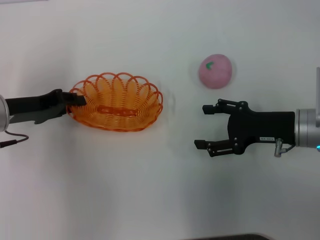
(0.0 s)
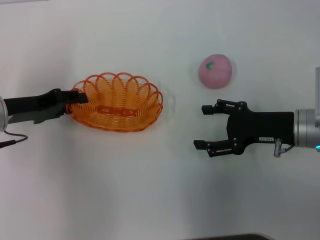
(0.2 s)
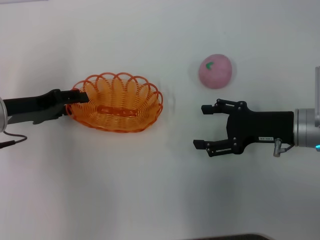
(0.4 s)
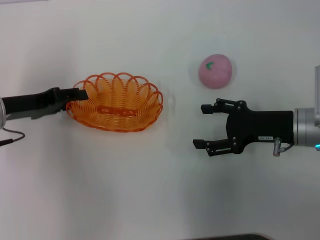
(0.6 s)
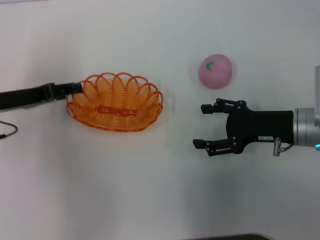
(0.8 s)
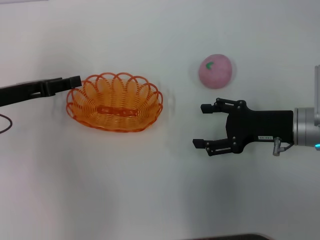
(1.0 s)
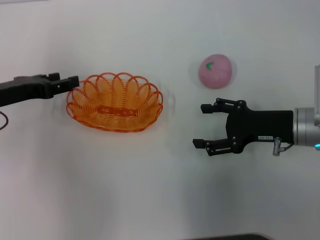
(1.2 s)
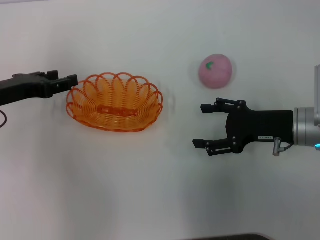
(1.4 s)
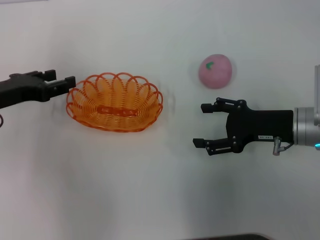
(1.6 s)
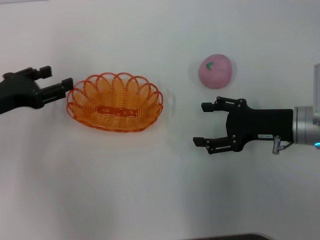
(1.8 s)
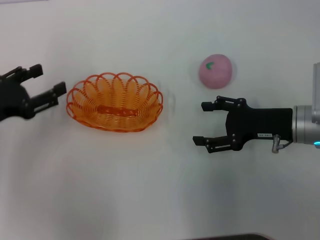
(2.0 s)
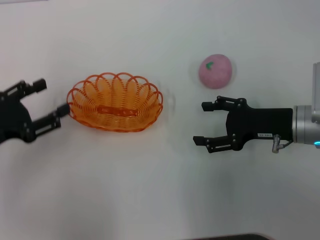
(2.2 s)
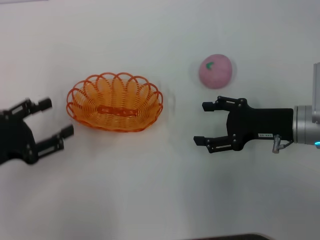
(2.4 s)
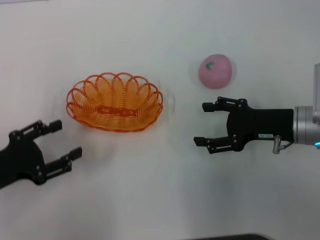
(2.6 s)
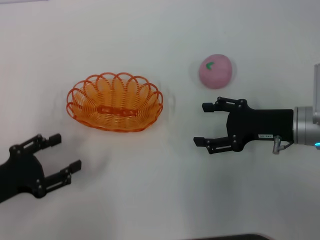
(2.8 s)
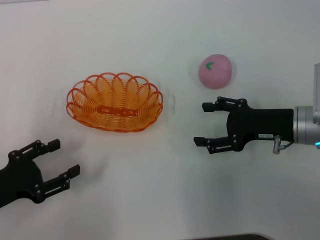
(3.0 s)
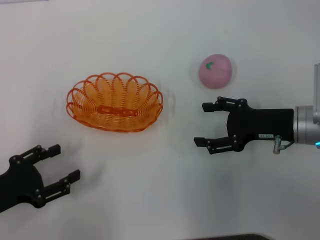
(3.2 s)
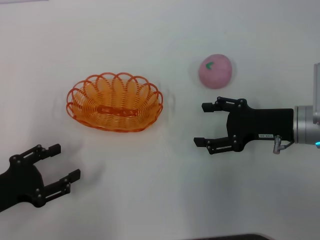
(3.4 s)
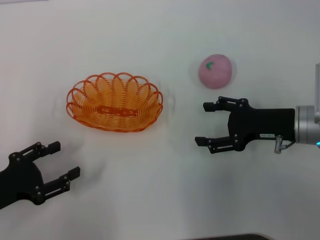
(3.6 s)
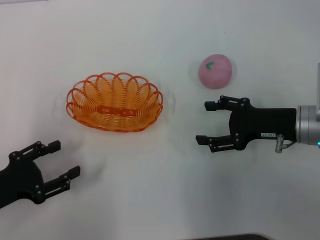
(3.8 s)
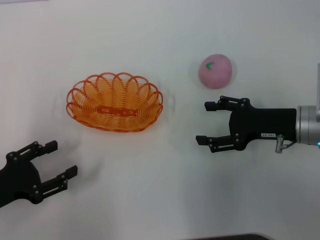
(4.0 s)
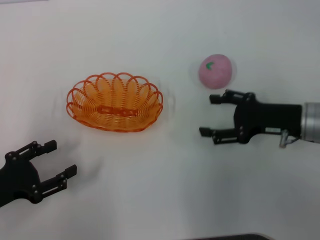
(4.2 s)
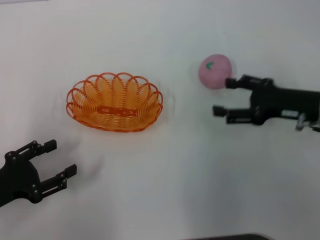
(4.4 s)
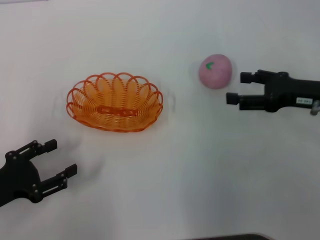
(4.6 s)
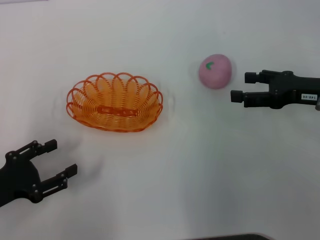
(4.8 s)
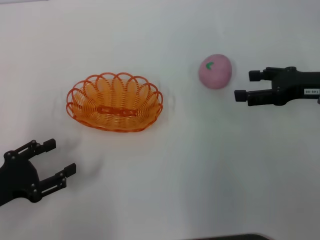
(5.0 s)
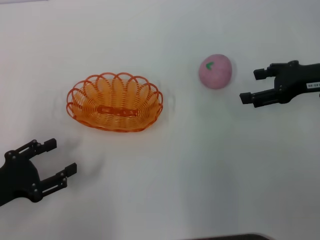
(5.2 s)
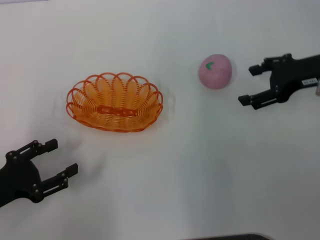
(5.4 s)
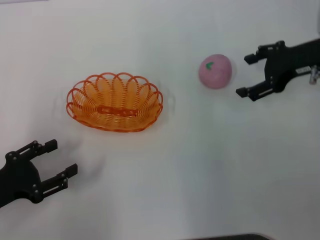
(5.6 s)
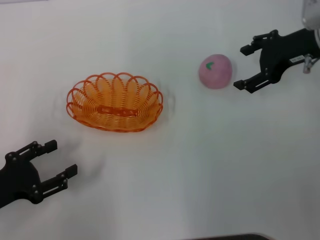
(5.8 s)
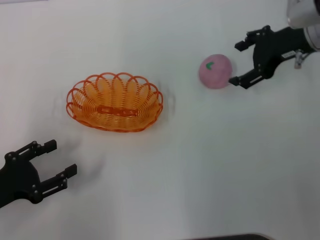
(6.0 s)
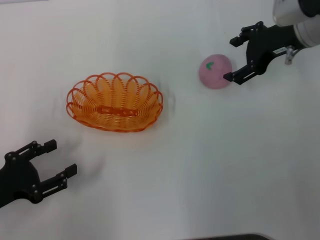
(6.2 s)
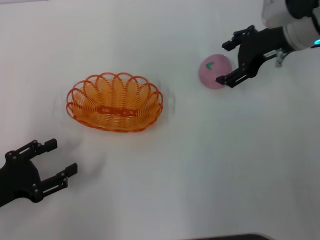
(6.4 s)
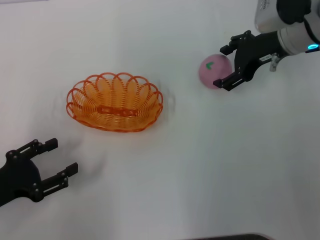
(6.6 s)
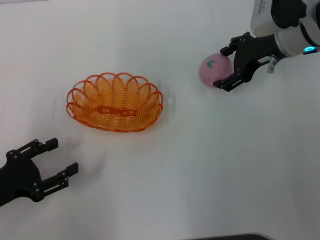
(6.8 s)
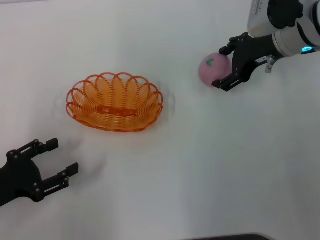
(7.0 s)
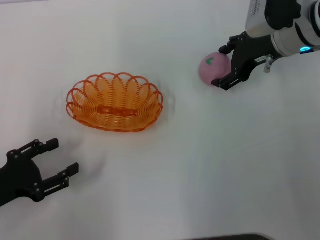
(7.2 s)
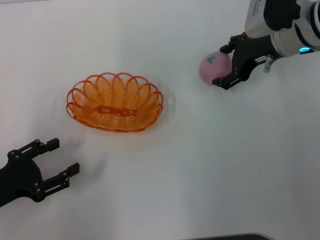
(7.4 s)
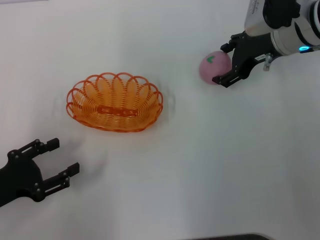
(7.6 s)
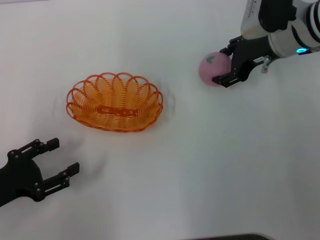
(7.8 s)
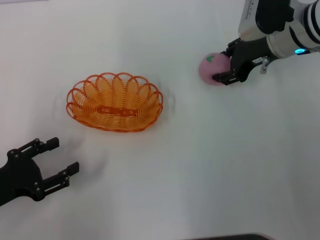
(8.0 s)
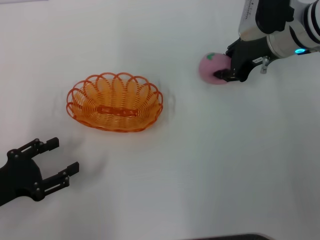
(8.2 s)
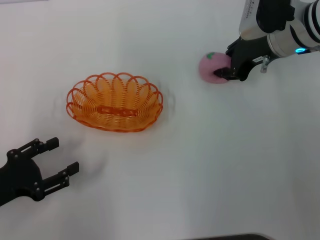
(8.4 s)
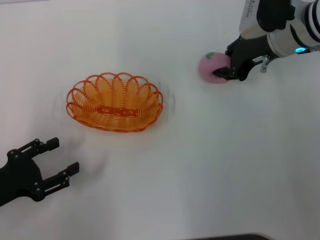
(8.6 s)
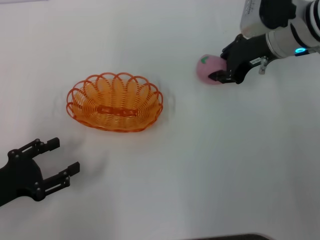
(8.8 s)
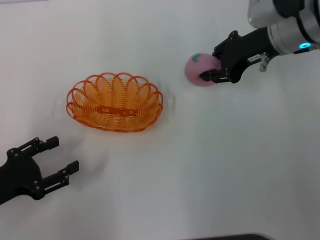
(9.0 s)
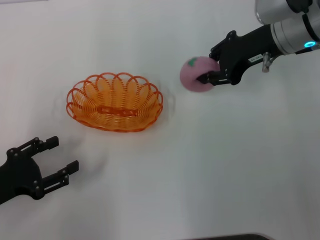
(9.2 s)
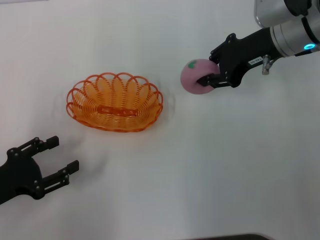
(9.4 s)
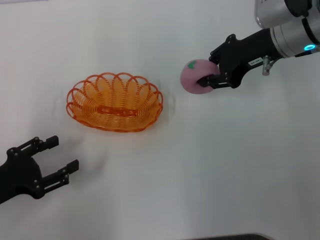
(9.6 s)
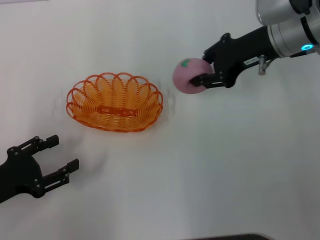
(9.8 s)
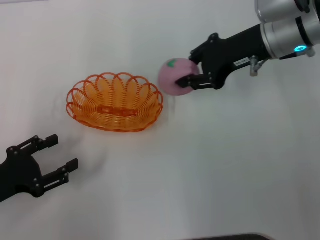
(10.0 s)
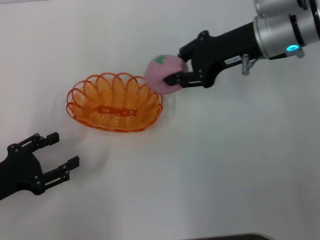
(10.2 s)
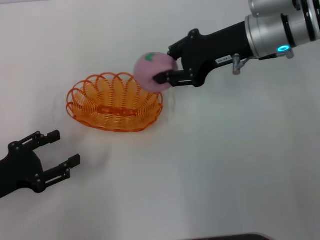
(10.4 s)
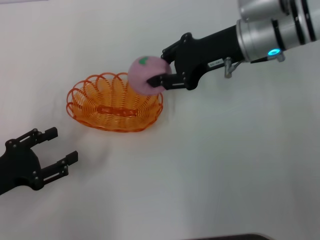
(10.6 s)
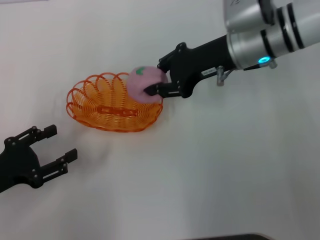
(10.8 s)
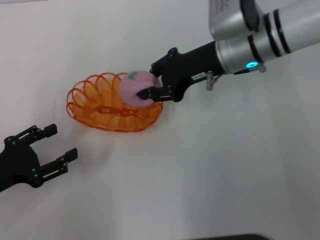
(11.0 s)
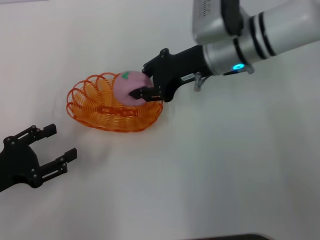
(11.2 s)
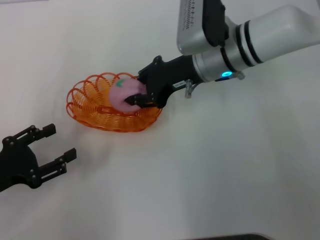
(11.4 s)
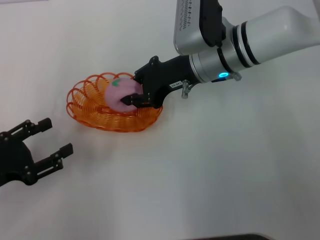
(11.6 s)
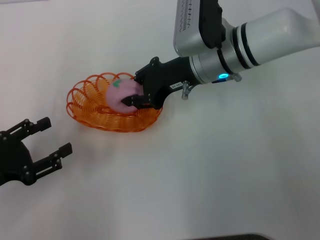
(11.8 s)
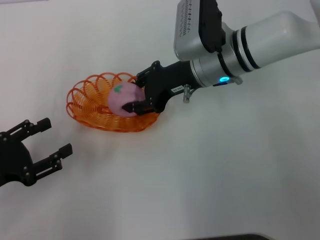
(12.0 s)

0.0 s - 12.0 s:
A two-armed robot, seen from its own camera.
Step, 1.8 s - 9.0 s: Pick up the peach with the right gripper.
0.0 s - 1.6 s: The left gripper opens up.
1.6 s - 3.0 s: The left gripper heads backward and downward, covering roughly 15 cm.
3.0 s - 4.4 s: The grippers move only a little.
4.4 s - 6.0 s: The right gripper moves forward and upward, about 15 cm.
6.0 s - 7.6 s: The grippers move only a little.
7.6 s - 9.0 s: The right gripper closes up.
10.4 s - 12.0 s: The right gripper travels to the left and downward by approximately 10 cm.

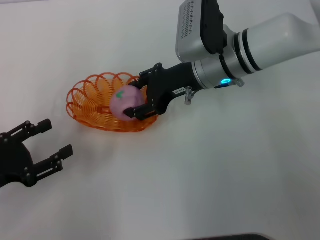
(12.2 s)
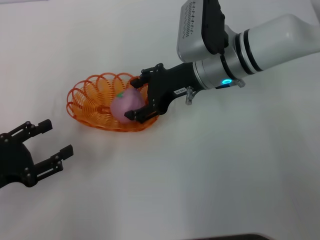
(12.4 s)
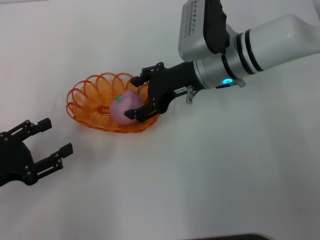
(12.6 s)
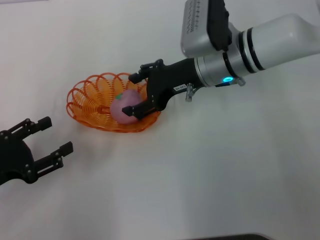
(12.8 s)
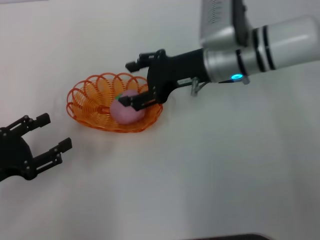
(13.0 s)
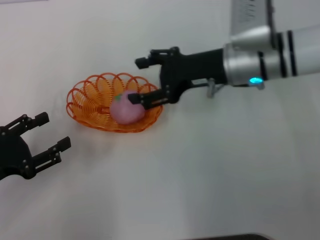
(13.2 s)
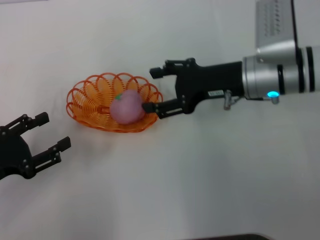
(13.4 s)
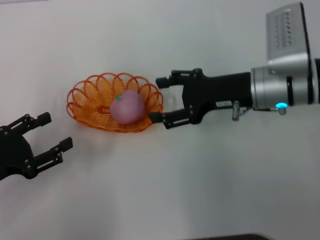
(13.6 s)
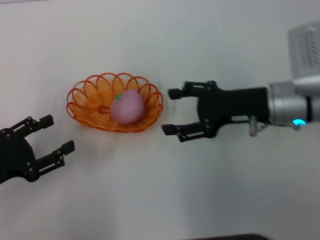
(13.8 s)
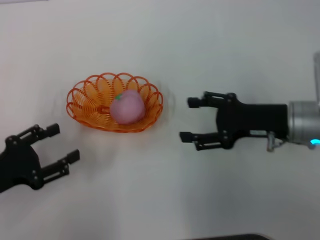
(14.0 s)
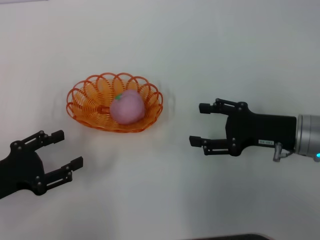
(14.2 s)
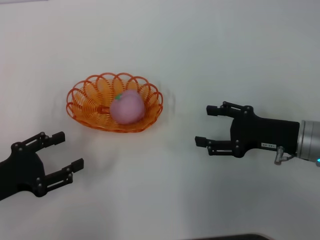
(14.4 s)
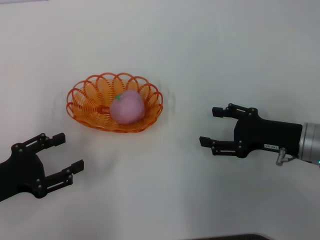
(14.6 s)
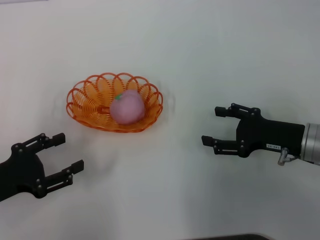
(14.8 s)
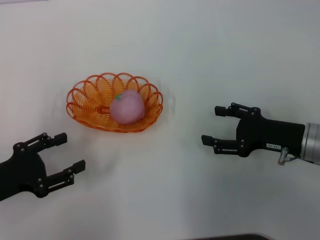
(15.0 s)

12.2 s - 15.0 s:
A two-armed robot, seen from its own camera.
12.2 s - 13.6 s: The right gripper heads to the right and backward, covering some 10 cm, and opens up.
13.6 s - 15.0 s: The right gripper heads to the right, backward and downward, covering about 15 cm.

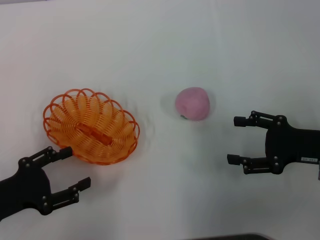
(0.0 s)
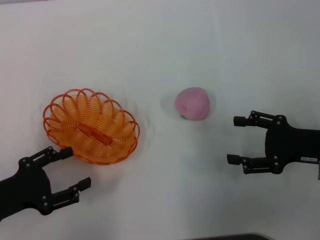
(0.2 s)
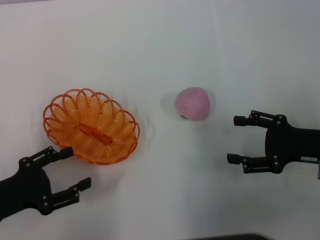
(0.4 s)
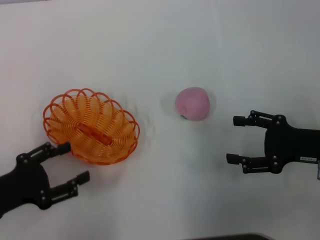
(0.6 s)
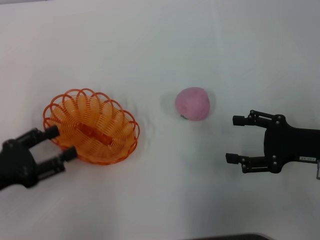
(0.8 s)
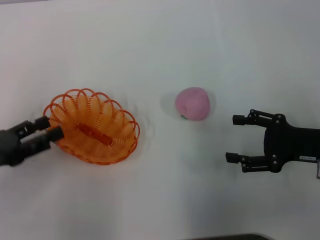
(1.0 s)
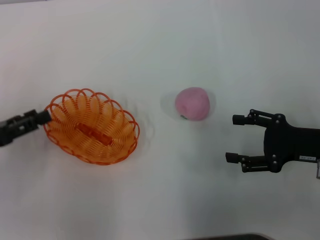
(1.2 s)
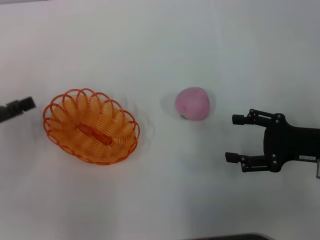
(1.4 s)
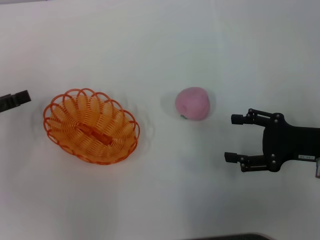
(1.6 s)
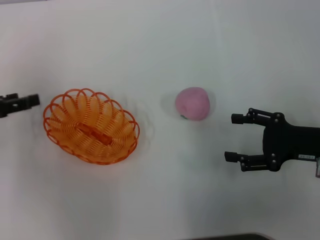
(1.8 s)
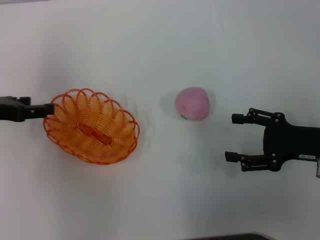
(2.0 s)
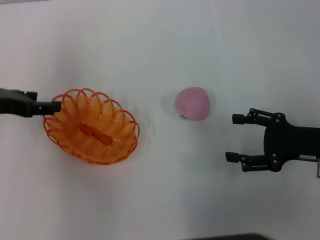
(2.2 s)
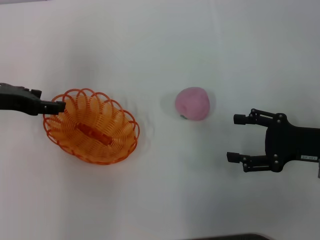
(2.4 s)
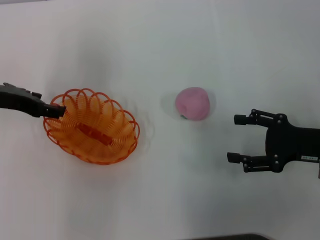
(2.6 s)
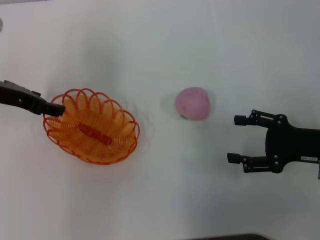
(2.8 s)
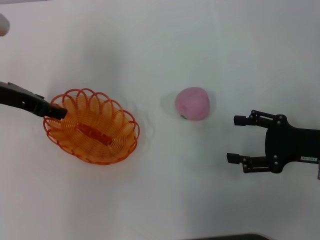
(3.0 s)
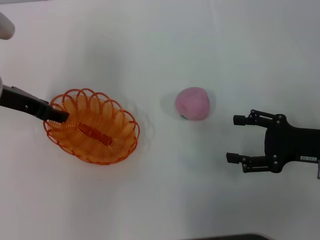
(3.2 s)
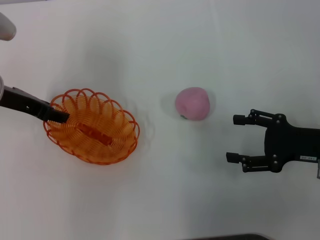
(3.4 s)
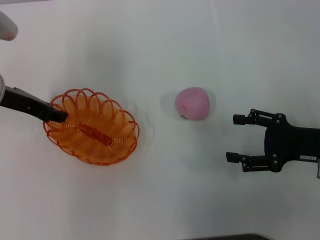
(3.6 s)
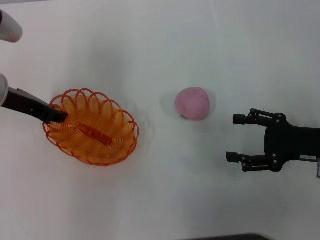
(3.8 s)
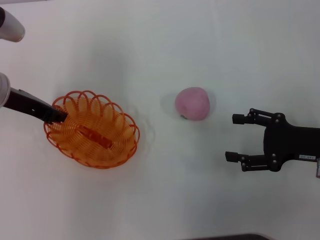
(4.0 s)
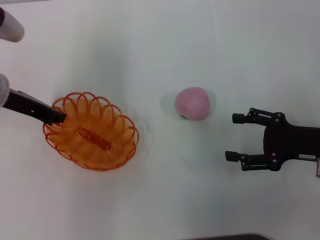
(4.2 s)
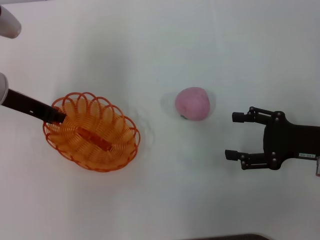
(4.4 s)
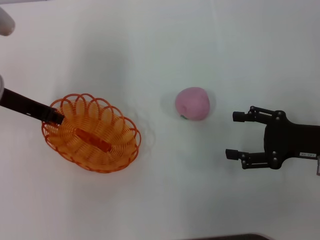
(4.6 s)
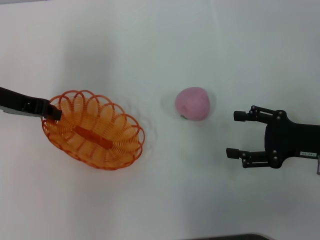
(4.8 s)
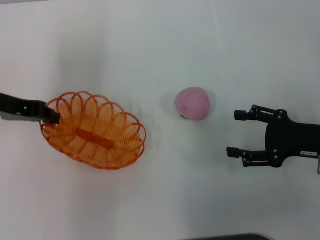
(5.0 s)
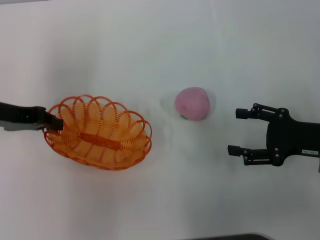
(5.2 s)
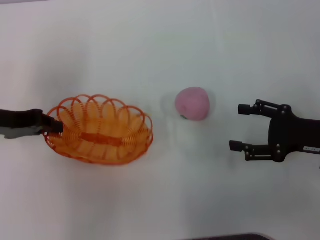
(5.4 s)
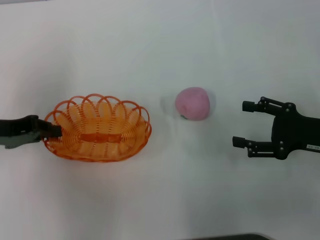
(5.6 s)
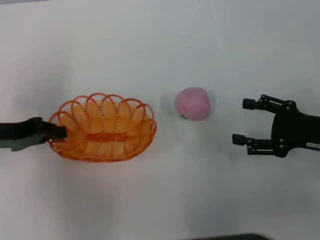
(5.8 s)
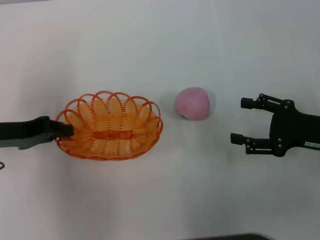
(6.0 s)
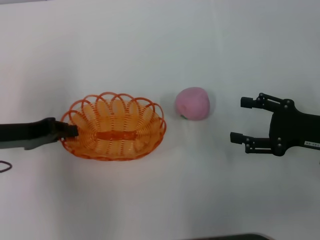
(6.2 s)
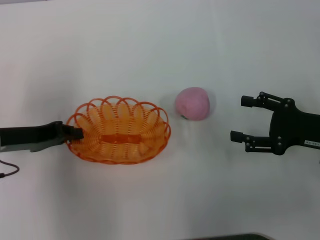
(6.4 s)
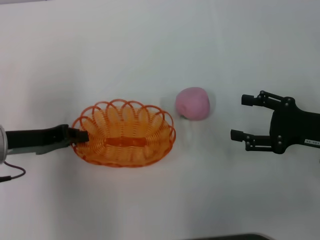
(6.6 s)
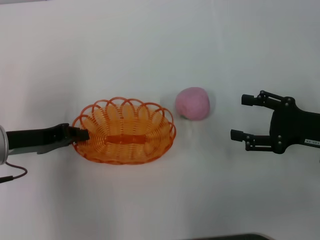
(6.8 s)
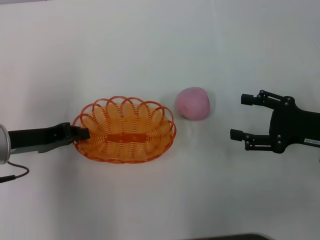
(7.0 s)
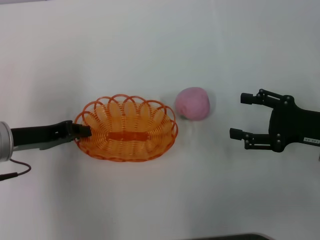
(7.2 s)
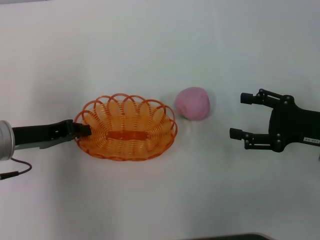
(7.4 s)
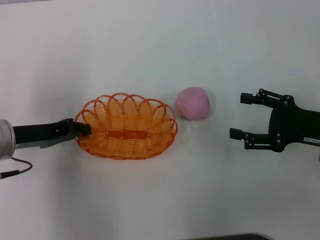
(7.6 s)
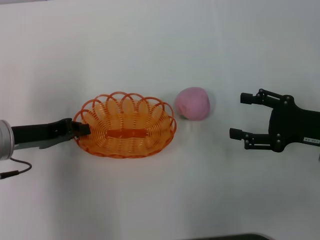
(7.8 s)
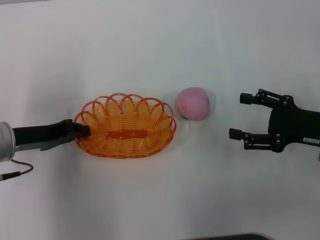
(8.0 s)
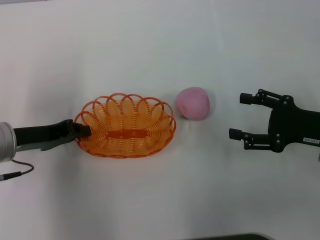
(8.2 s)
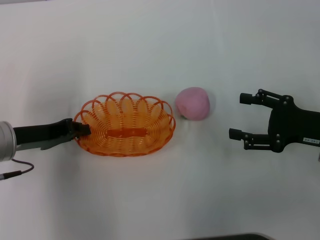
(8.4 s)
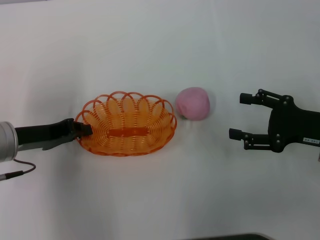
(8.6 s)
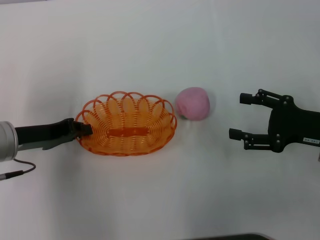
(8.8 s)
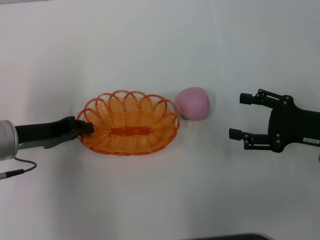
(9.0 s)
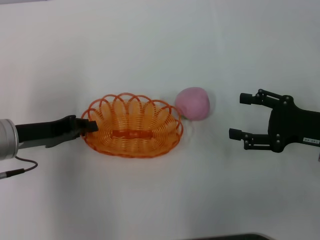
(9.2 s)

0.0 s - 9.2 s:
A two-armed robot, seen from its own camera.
Step, 0.0 s - 5.0 s: Pick up the basket with the left gripper.
0.0 s - 1.6 s: The left gripper travels forward, upward and to the left by roughly 10 cm.
1.6 s - 3.0 s: The left gripper heads to the right and forward, covering some 15 cm.
3.0 s - 4.6 s: The left gripper closes up.
4.6 s - 6.2 s: The left gripper travels backward by about 5 cm.
6.2 s - 7.6 s: There are only small adjustments of the grippers.
7.6 s - 9.2 s: Neither gripper changes place.
